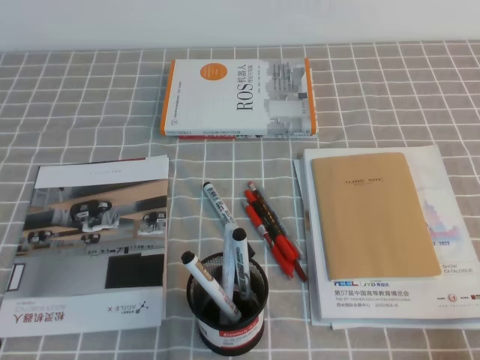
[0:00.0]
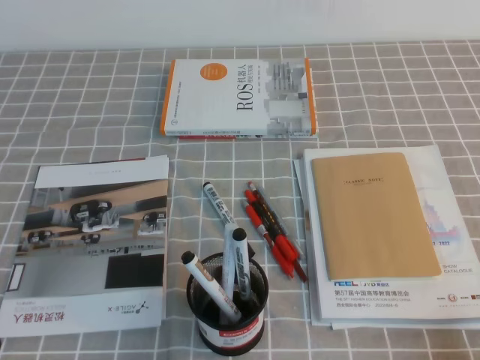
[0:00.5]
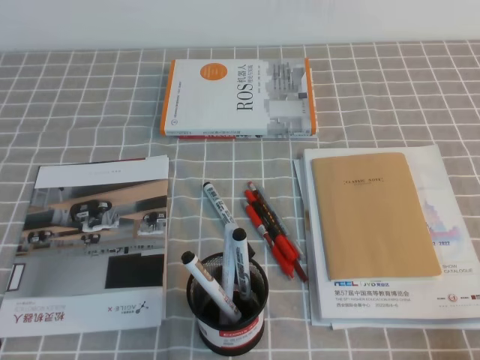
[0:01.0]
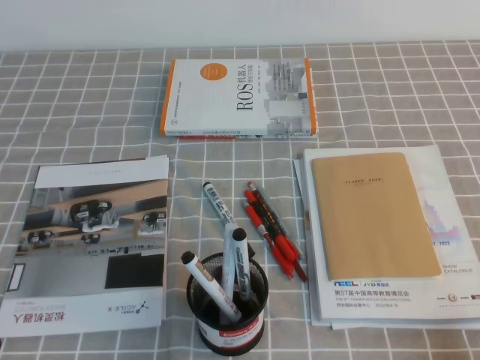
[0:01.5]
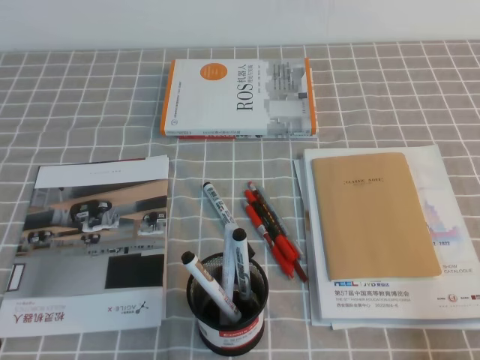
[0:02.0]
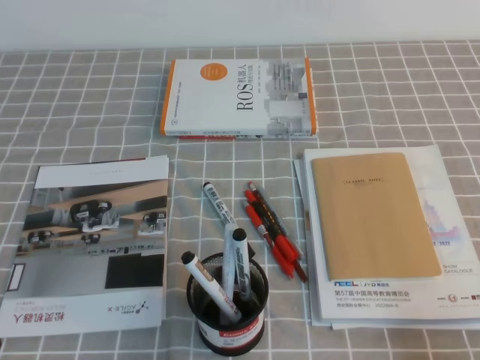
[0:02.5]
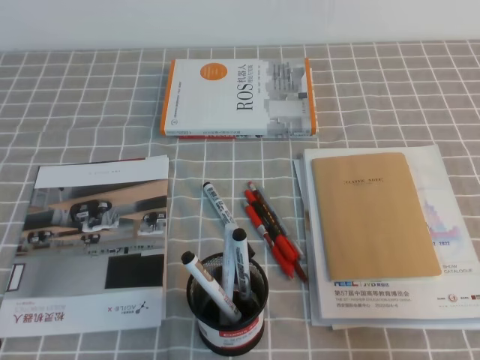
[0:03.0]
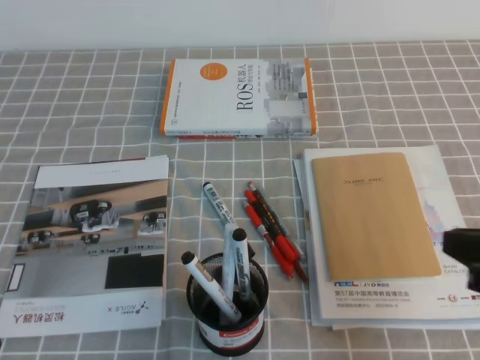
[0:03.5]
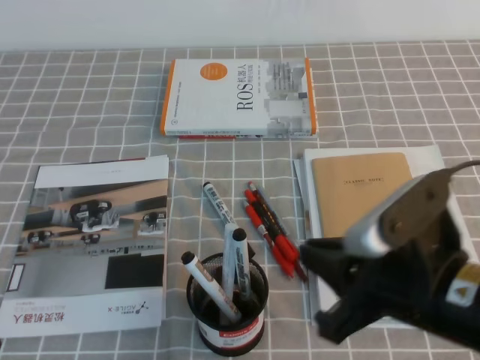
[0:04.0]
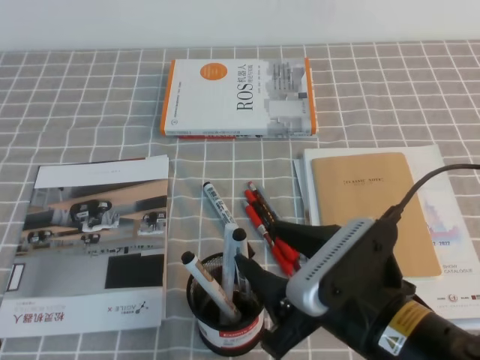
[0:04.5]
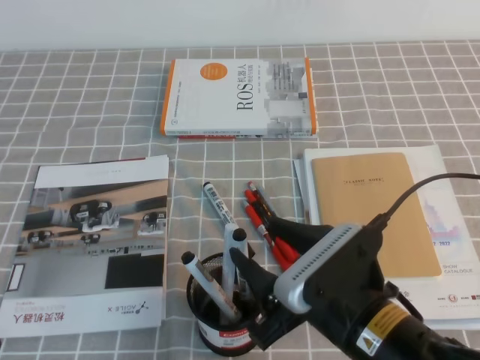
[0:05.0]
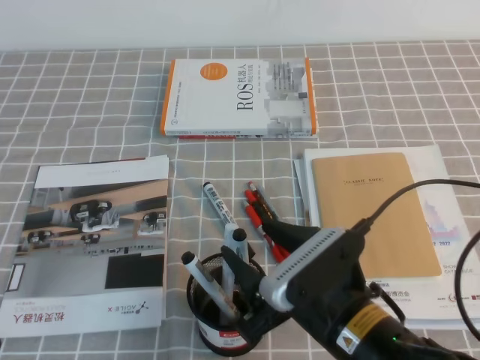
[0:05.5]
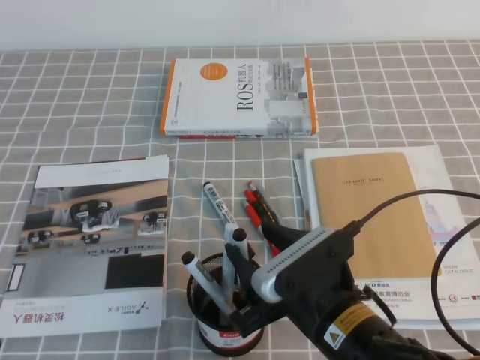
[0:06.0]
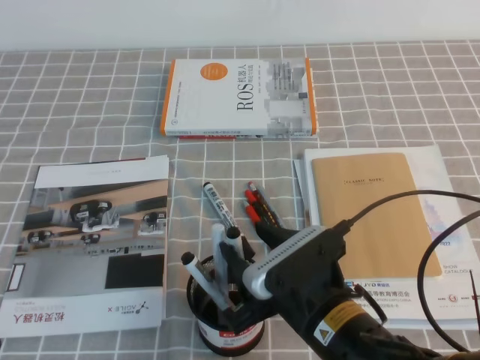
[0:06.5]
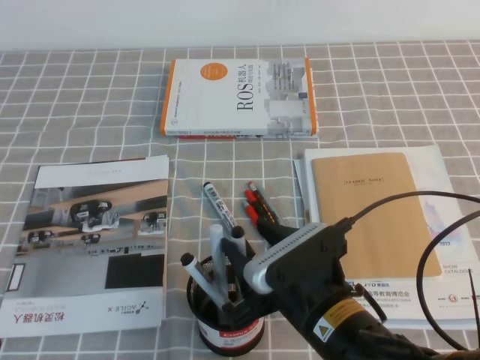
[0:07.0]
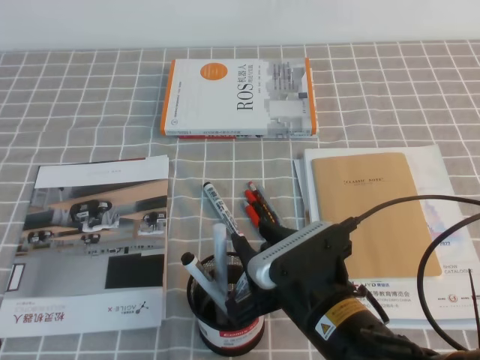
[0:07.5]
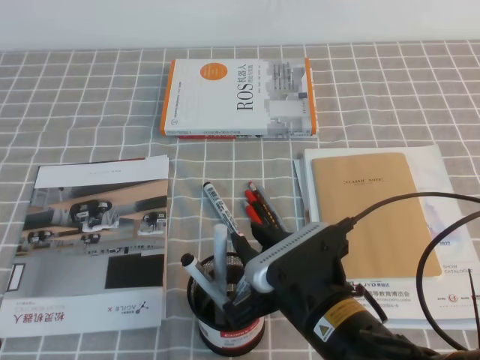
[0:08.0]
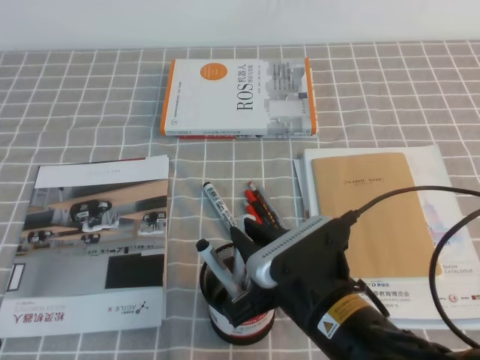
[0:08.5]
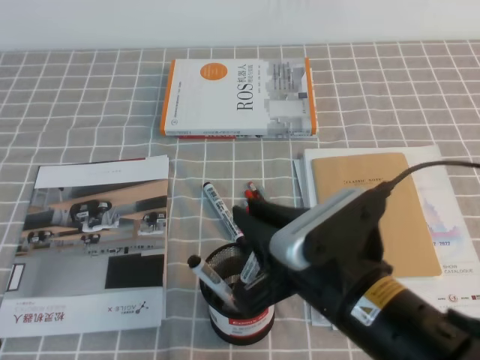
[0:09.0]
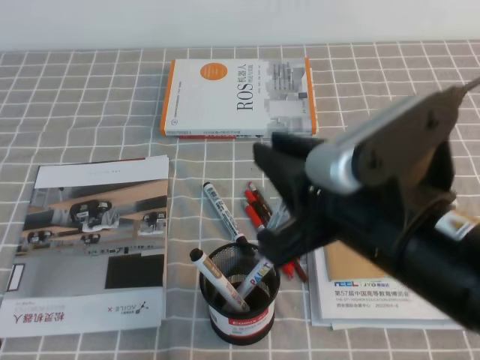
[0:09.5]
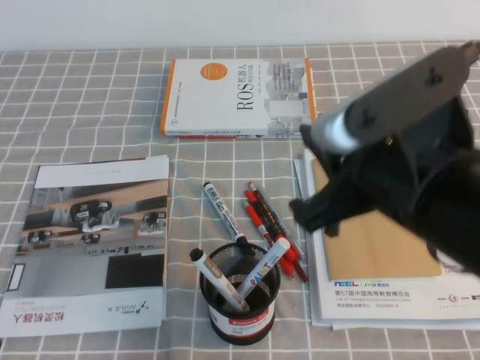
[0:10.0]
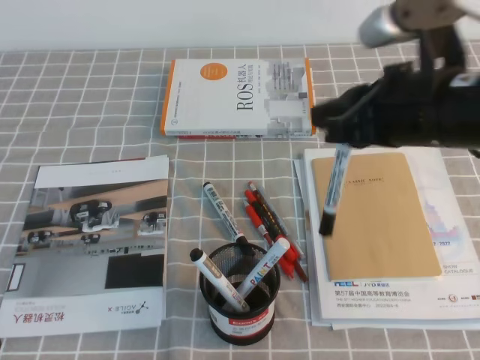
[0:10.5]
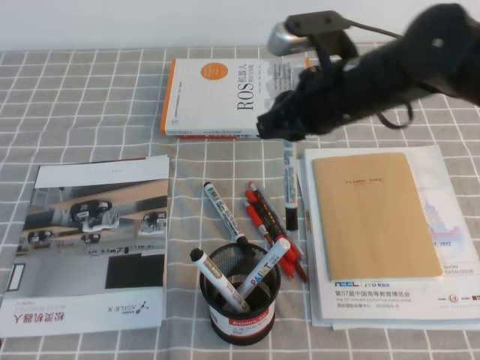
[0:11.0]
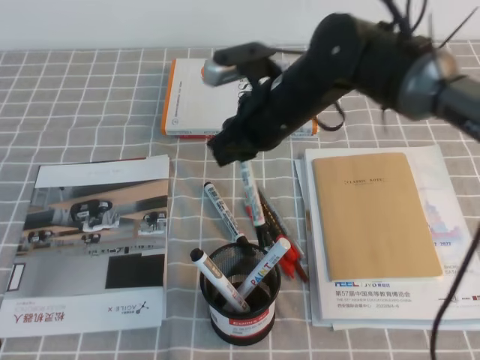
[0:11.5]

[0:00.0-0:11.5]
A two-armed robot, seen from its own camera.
0:02.0 to 0:04.0: The right gripper goes approximately 20 cm to the left, forward and upward.
0:04.0 to 0:06.0: The right gripper moves to the left and downward, roughly 10 cm, and opens.
0:06.0 to 0:07.5: Neither gripper changes place.
0:07.5 to 0:09.5: The right gripper moves upward, some 15 cm, and closes.
0:09.5 to 0:11.5: The right gripper goes about 25 cm forward.

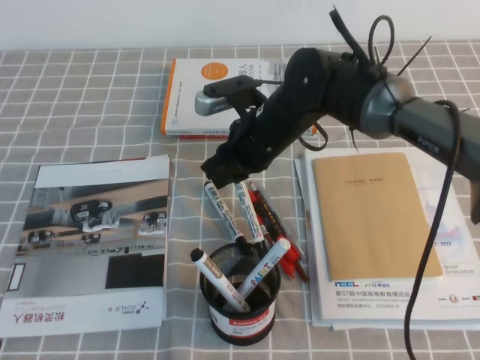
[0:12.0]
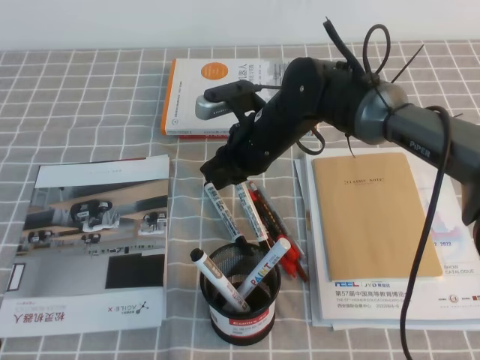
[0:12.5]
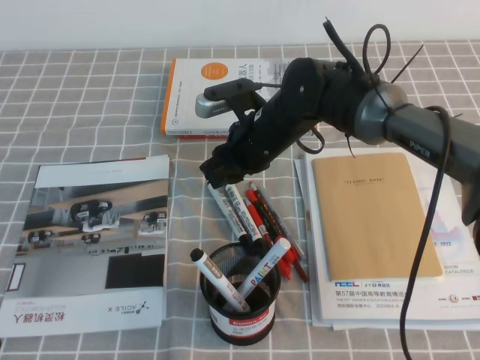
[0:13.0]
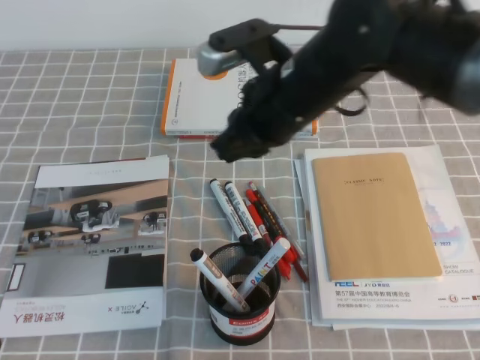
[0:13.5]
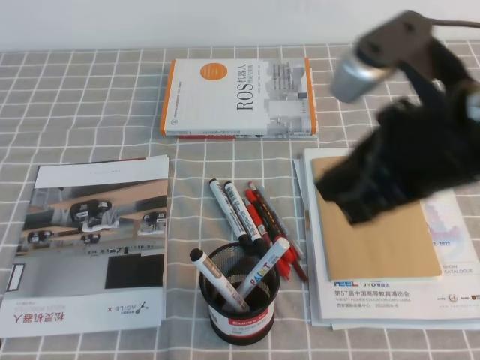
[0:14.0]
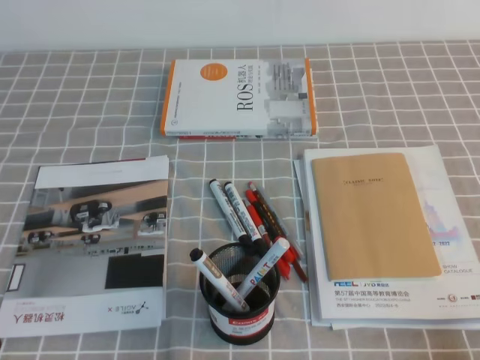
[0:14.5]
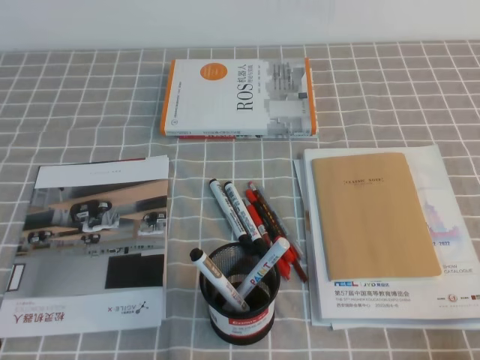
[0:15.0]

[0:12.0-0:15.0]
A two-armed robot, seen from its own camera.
Step, 0:12.0 to 0:15.0: Pick up the pen from the pen holder.
0:12.0 to 0:13.5: The right gripper shifts some 10 cm upward and backward.
0:13.5 to 0:15.0: The right gripper is displaced backward, to the right and downward by roughly 40 cm.

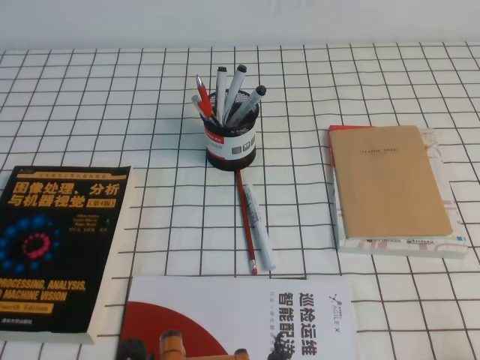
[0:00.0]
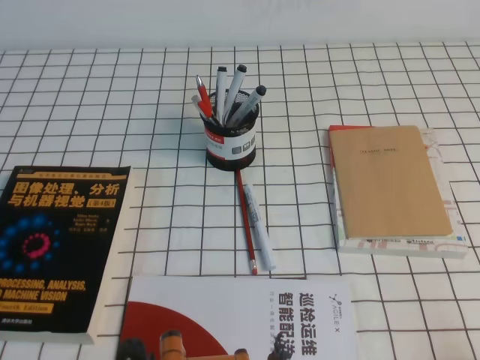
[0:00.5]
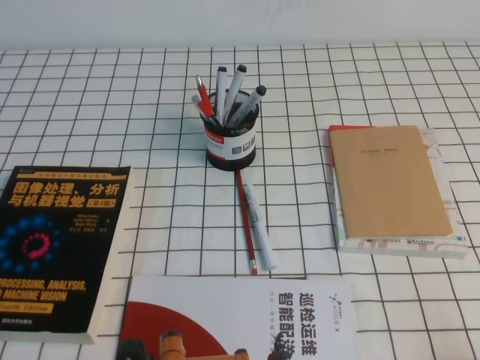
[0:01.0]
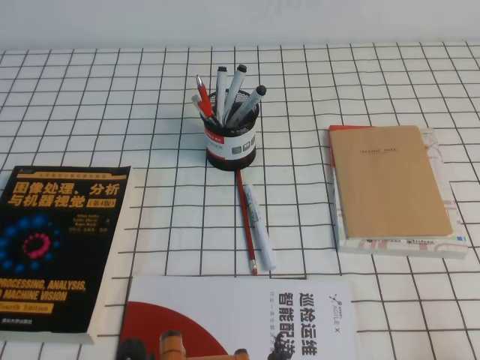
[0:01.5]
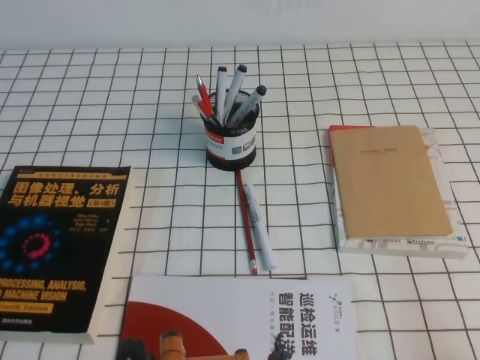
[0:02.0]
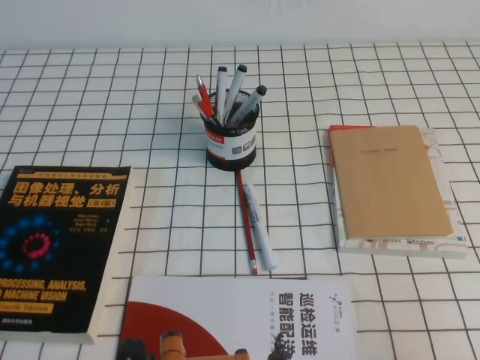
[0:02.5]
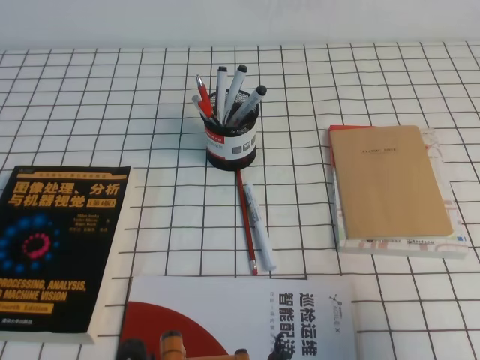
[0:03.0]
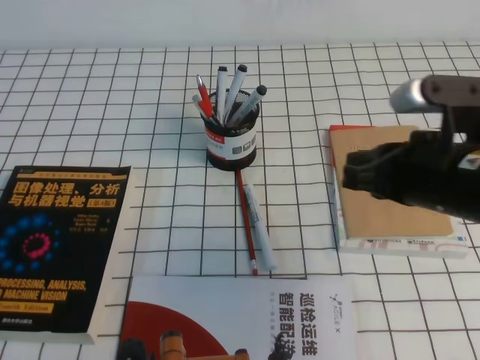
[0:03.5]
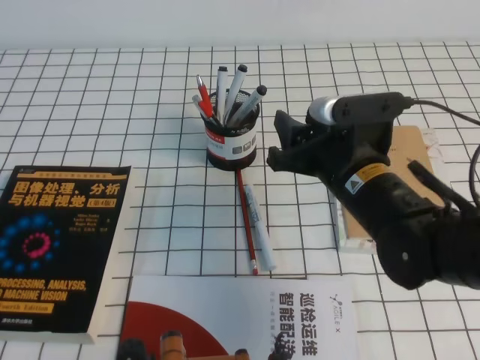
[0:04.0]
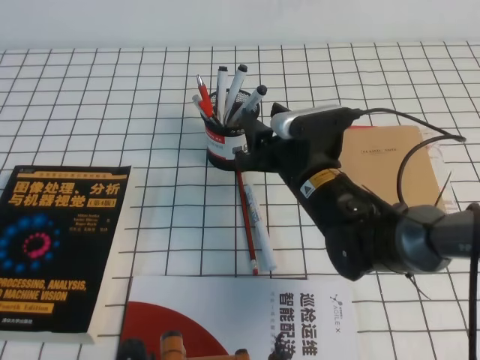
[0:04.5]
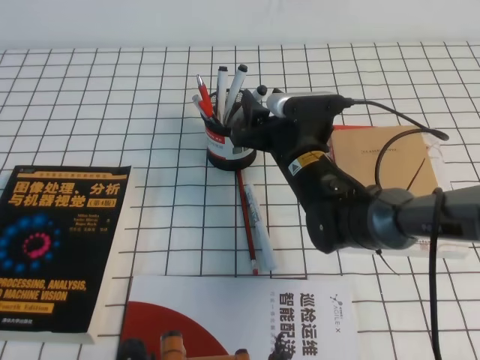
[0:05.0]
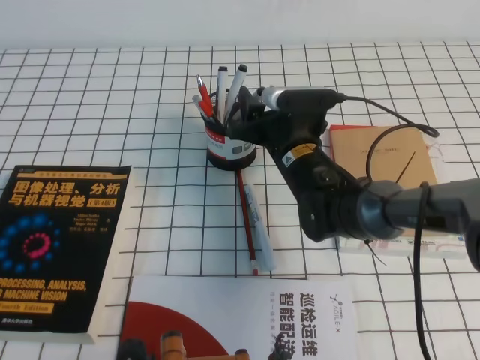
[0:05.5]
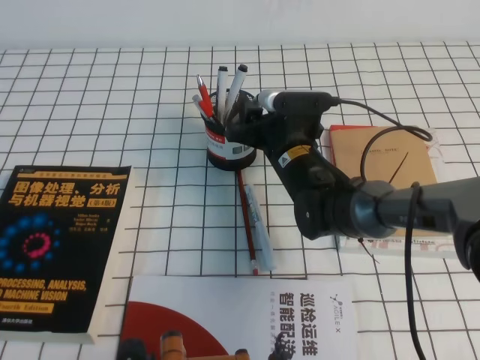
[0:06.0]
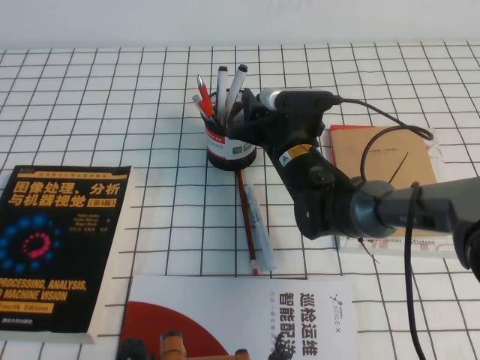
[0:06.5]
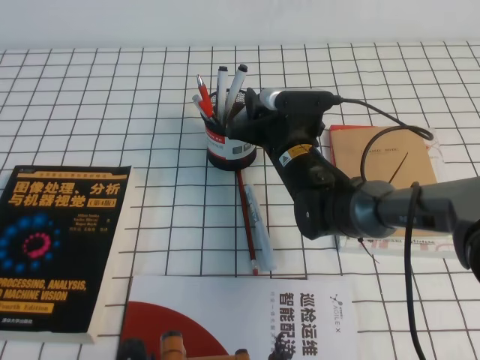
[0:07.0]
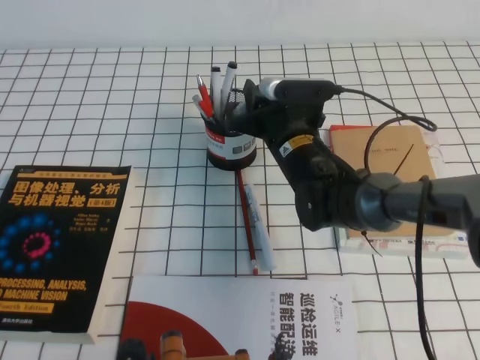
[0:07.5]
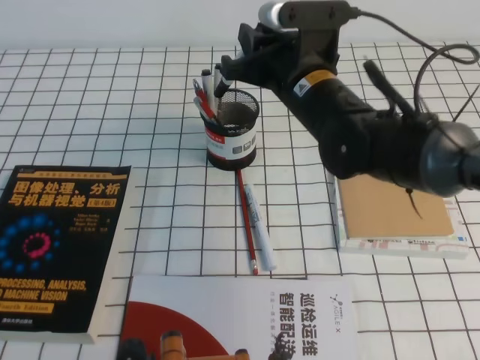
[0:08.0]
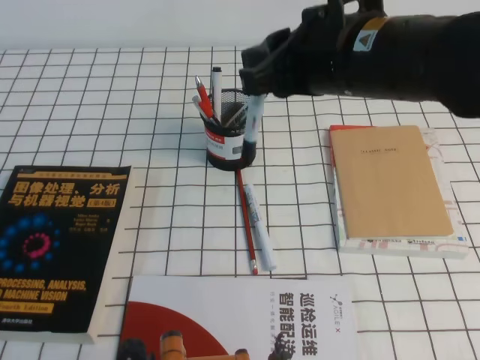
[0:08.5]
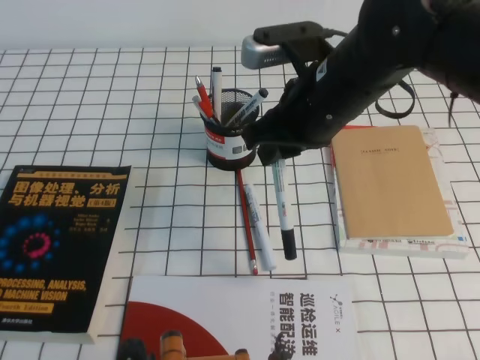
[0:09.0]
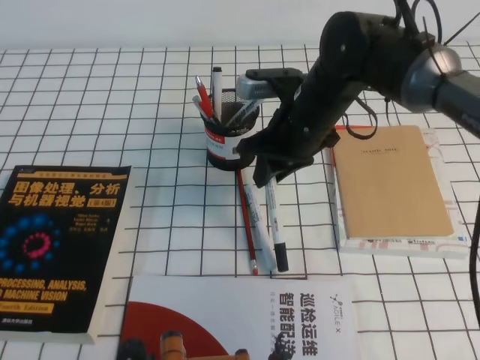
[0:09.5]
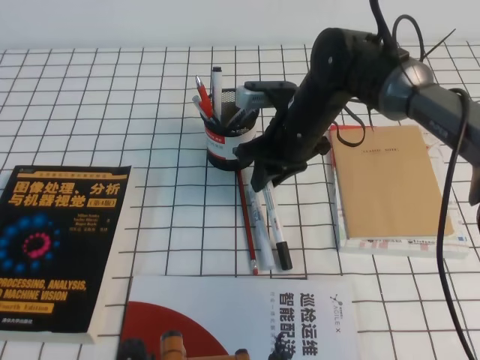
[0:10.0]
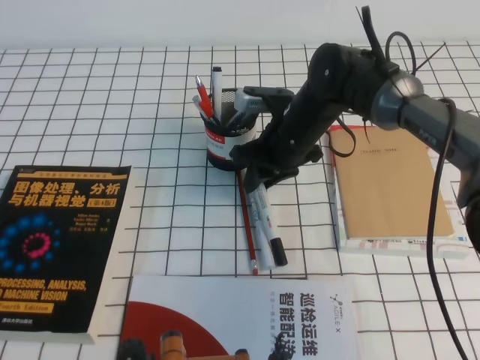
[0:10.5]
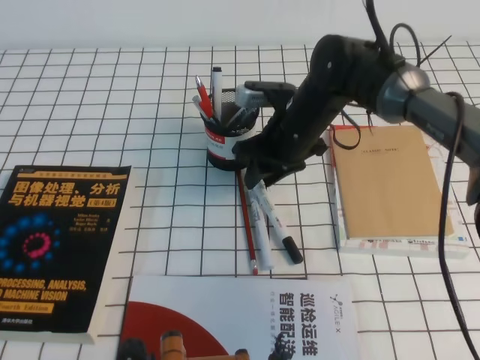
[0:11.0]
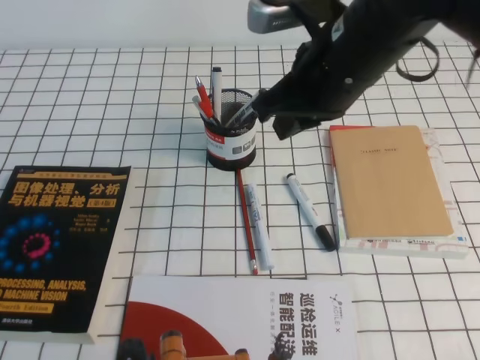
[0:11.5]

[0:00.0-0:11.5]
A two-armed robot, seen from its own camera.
0:02.0 to 0:04.0: The right gripper travels forward and to the left by roughly 30 cm, and opens.
0:04.0 to 0:06.0: The right gripper travels forward, downward and to the left by about 15 cm.
0:06.0 to 0:07.5: The right gripper closes.
0:07.5 to 0:09.5: The right gripper heads upward, covering about 5 cm.
0:09.5 to 0:11.5: The right gripper is displaced upward and backward by roughly 10 cm.
